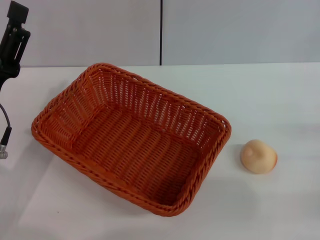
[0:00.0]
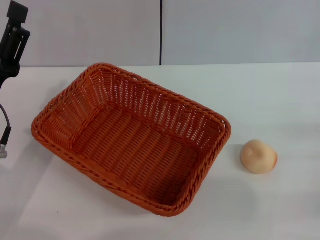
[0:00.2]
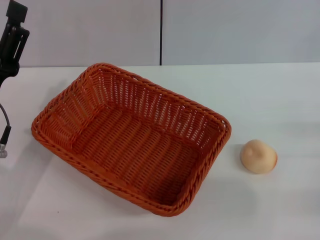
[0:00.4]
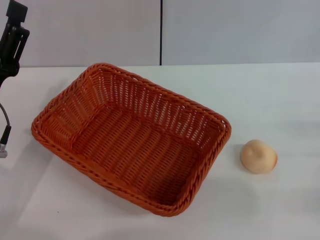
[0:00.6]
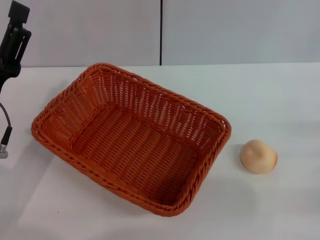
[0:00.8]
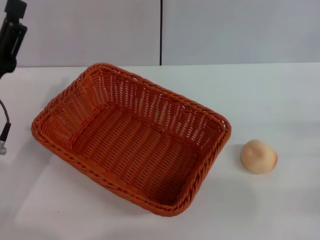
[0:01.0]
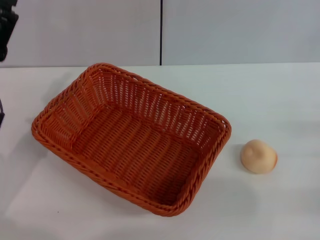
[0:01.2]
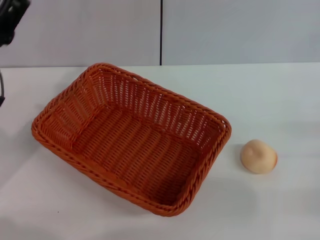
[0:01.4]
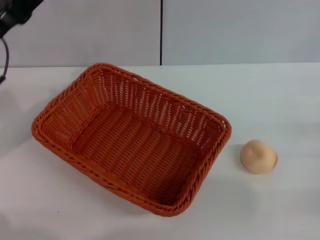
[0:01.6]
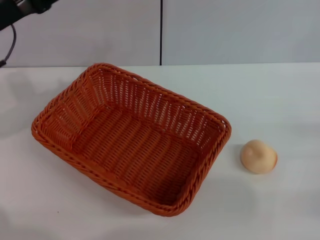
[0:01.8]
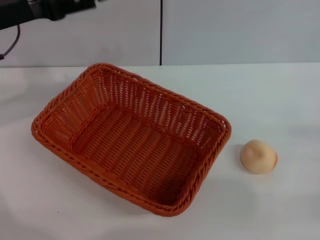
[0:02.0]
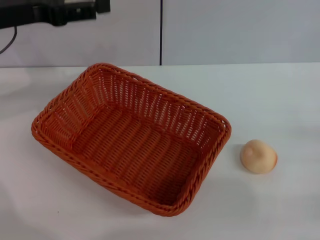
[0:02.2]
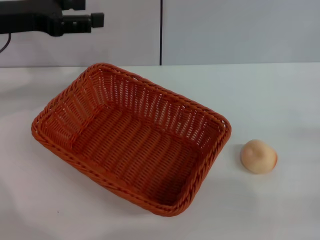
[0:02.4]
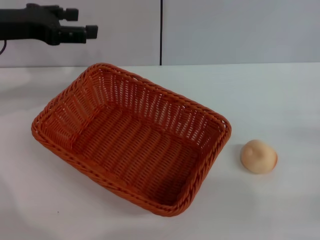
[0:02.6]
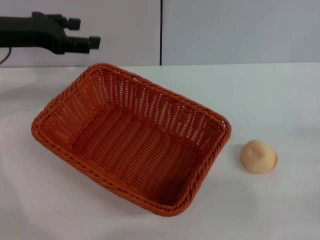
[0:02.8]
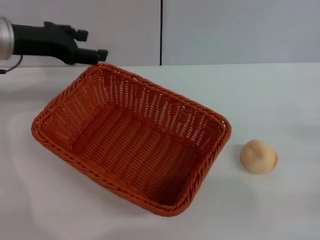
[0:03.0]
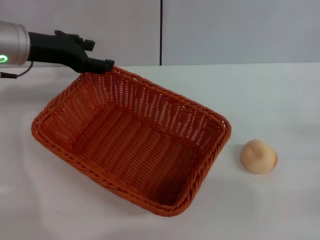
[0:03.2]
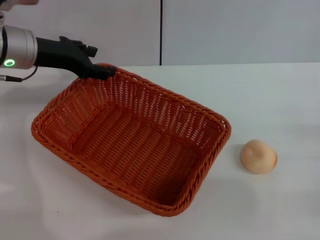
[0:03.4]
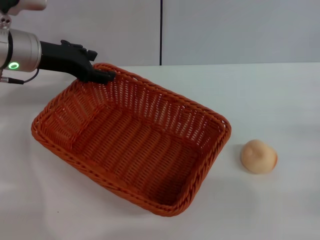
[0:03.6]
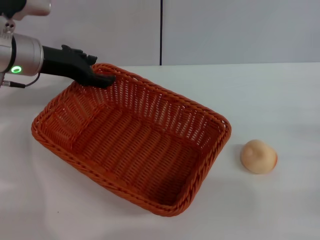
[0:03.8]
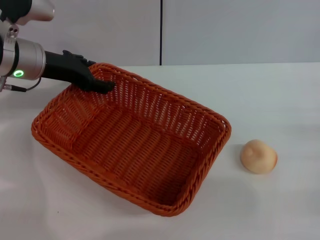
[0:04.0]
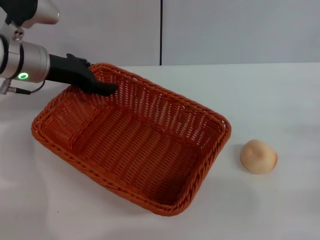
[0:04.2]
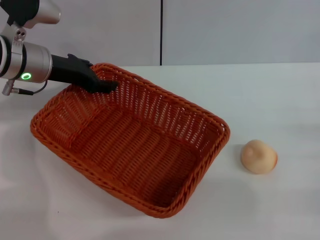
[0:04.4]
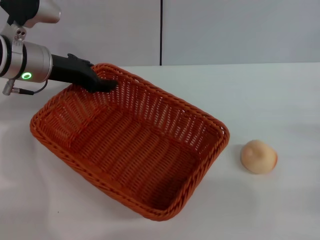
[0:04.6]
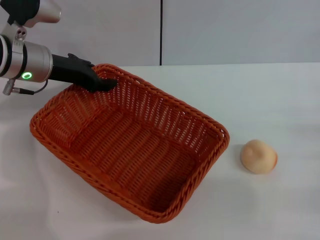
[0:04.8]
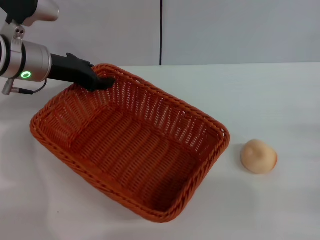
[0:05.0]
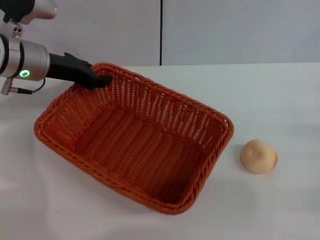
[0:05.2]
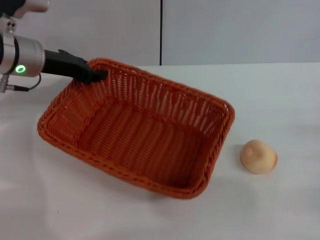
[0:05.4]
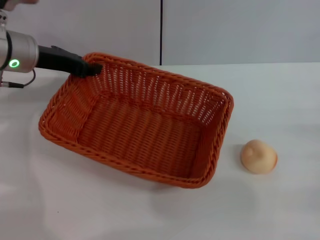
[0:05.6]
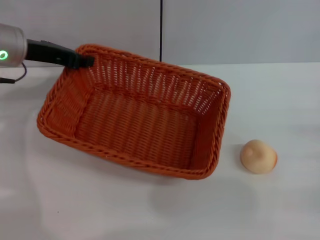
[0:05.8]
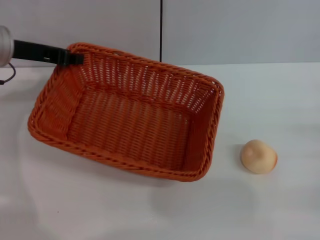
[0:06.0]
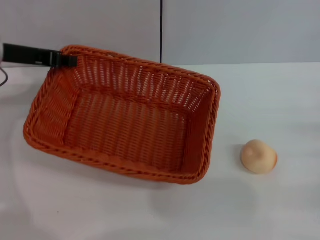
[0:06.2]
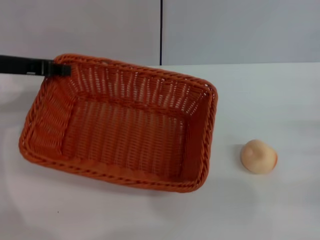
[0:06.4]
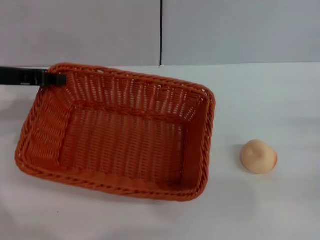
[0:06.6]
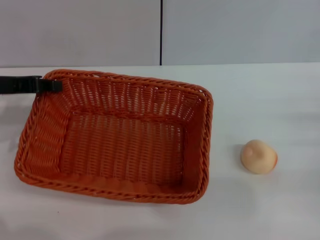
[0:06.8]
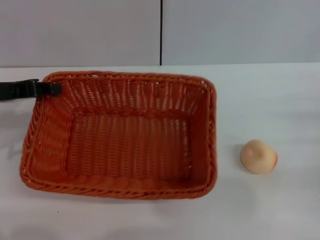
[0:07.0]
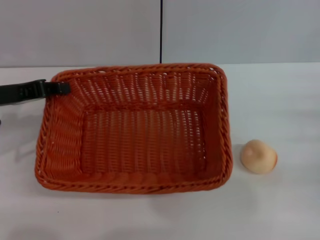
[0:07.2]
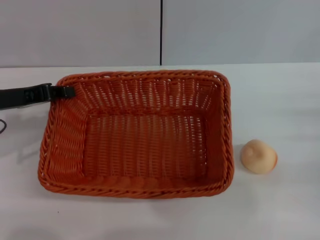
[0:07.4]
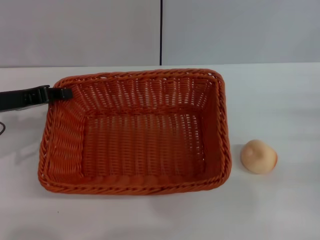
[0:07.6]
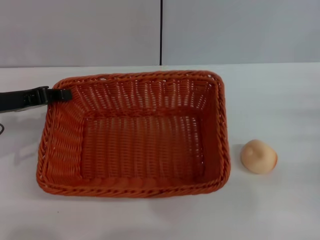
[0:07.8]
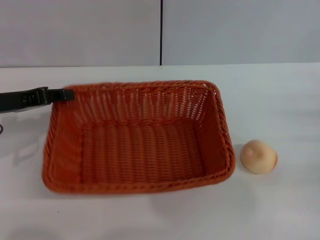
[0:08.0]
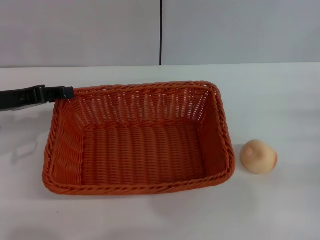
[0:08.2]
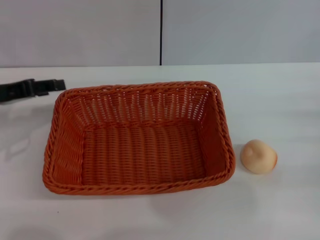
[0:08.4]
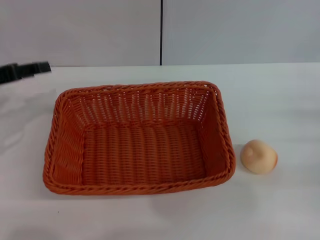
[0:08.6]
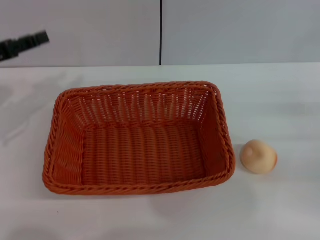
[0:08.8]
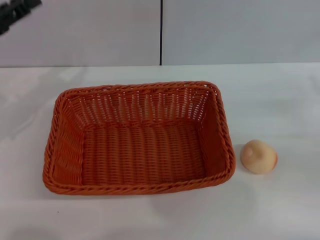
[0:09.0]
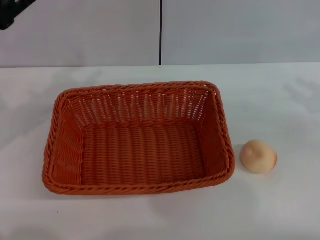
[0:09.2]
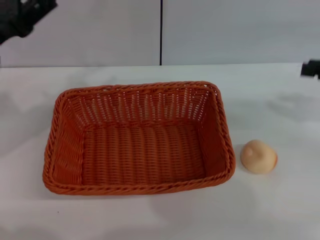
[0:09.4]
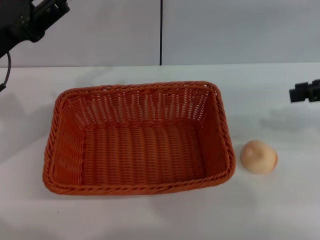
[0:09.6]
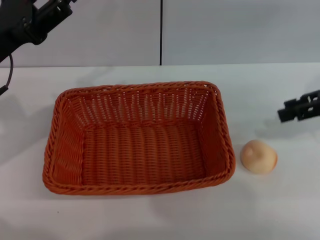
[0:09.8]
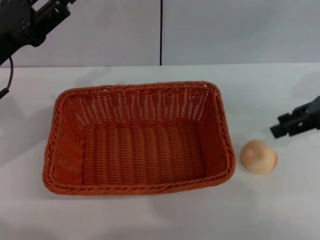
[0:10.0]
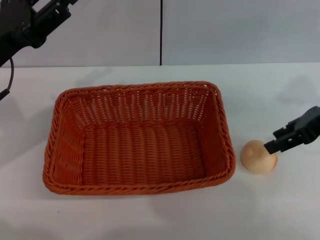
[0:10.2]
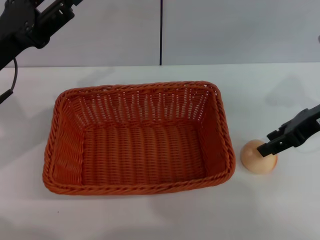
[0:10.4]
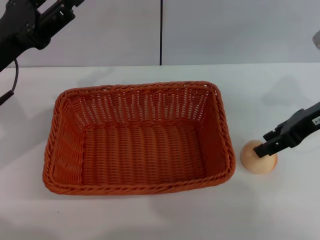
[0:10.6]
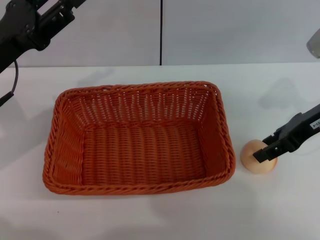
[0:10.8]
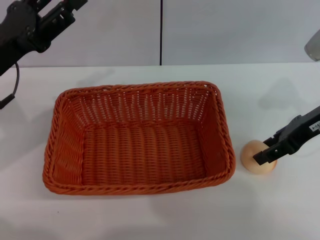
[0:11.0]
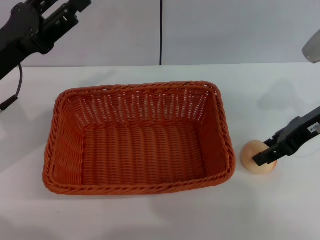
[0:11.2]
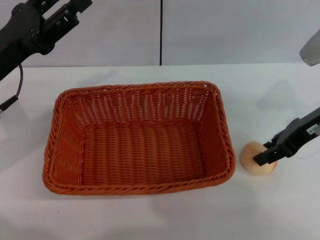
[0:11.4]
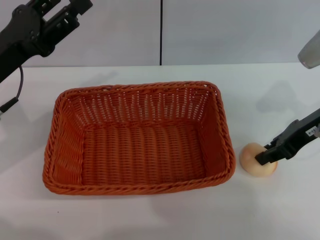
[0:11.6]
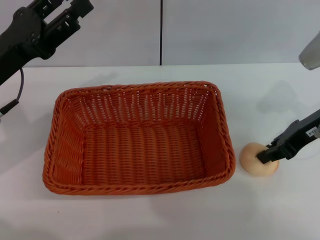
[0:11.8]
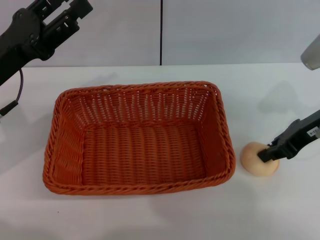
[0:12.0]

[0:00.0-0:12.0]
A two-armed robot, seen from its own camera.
Step, 0:00.0 to 0:08.4: Move the basket to the center of view with the left gripper.
0:00.0 to 0:01.6: The left gripper moves forward and upward, some 10 cm.
0:01.6 to 0:03.0: The left gripper shifts some 5 cm forward.
0:03.0 to 0:04.4: The left gripper moves about 5 cm.
0:04.4 to 0:06.0: The left gripper ends up some 5 cm from where it was, and closes.
0:06.0 to 0:07.6: The left gripper heads backward, covering about 10 cm.
0:07.6 to 0:09.0: The left gripper opens. Meanwhile the right gripper moves upward, approximately 5 cm.
0:09.0 to 0:10.4: The right gripper travels to the left, forward and upward by some 15 cm. The left gripper shifts approximately 5 cm to the right.
0:10.4 to 0:12.0: The right gripper closes up.

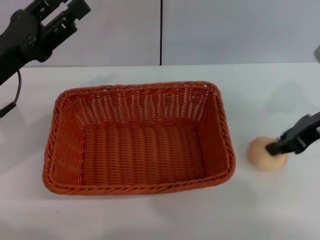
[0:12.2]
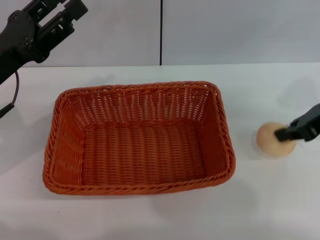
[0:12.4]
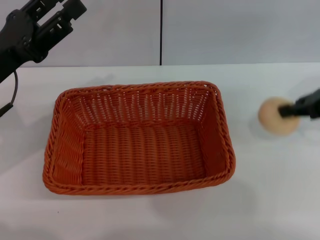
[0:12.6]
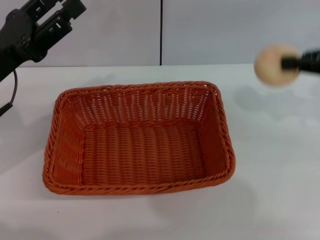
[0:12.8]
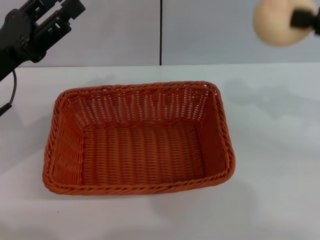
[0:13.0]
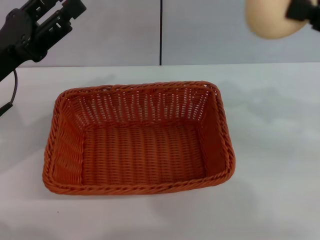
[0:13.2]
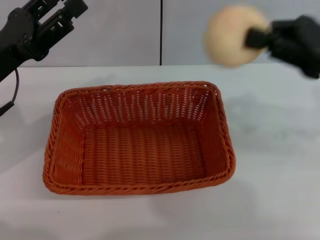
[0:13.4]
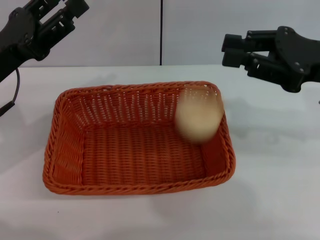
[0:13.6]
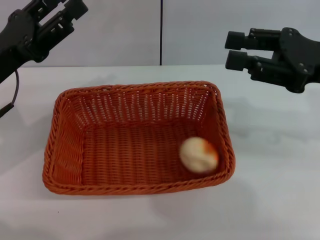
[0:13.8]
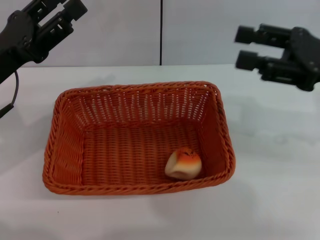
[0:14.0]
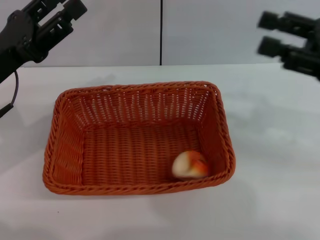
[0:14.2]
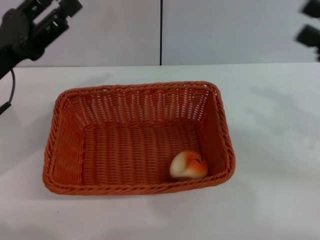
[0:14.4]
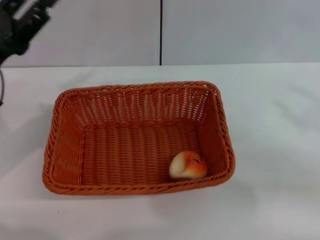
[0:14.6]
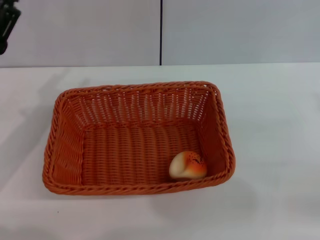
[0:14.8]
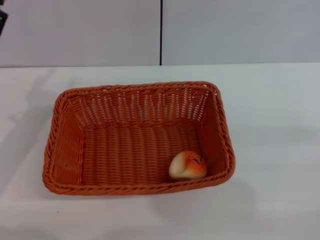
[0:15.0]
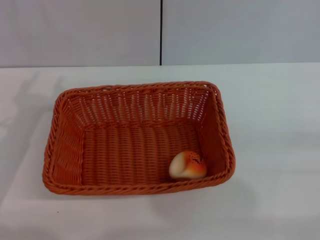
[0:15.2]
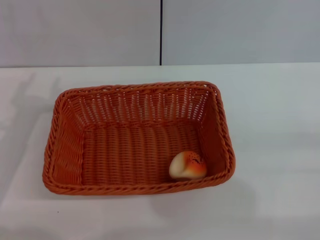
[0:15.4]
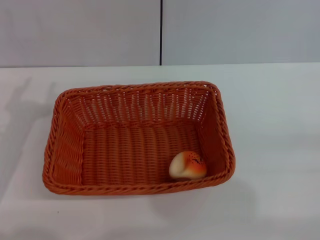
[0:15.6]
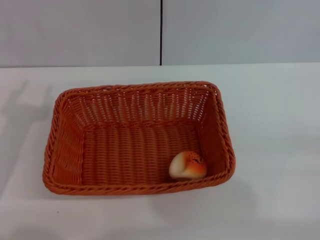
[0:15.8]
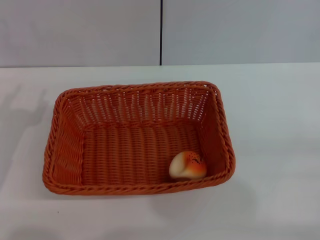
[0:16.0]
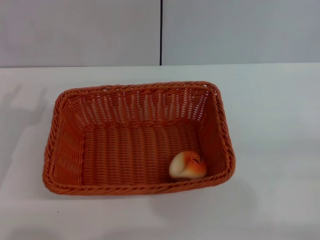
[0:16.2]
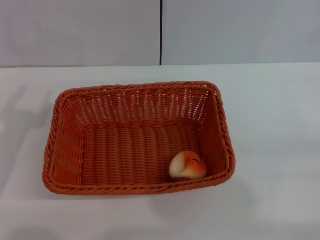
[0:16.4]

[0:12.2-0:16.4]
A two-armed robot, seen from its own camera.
Step, 0:12.8 to 0:14.0: Place the egg yolk pastry into the basket with the right gripper.
0:13.6 to 0:15.0: The left gripper moves roughly 5 cm; the right gripper travels to the right, backward and downward by roughly 20 cm, and opens its fingers.
